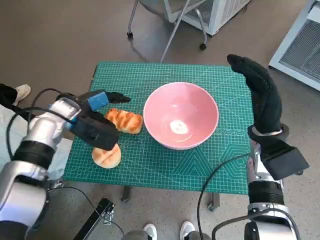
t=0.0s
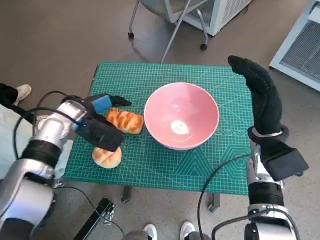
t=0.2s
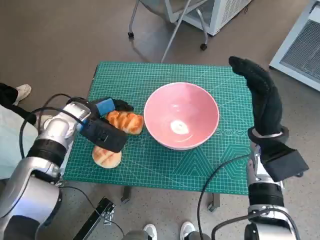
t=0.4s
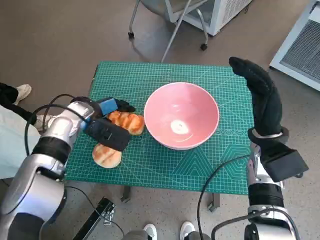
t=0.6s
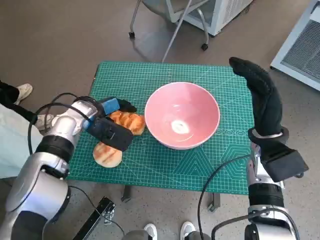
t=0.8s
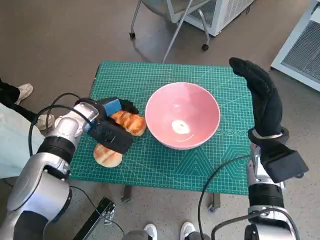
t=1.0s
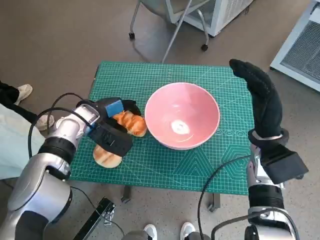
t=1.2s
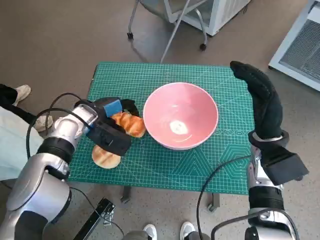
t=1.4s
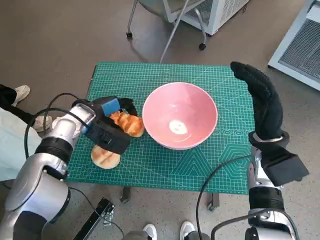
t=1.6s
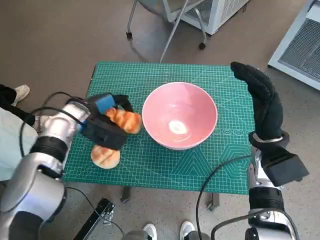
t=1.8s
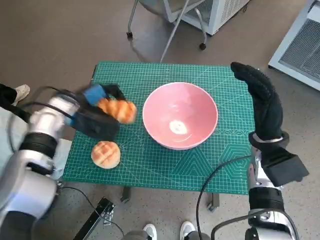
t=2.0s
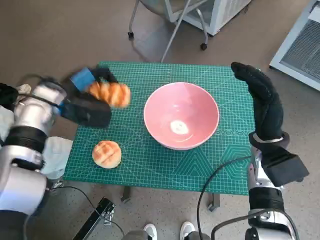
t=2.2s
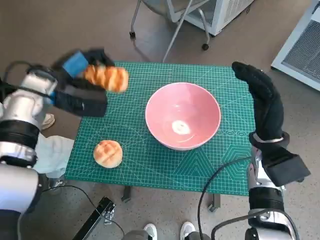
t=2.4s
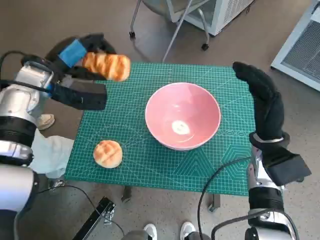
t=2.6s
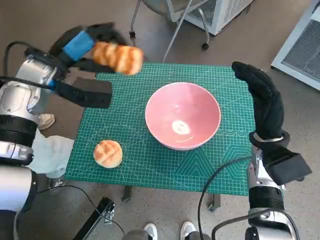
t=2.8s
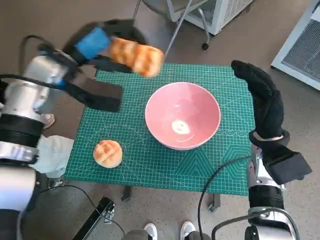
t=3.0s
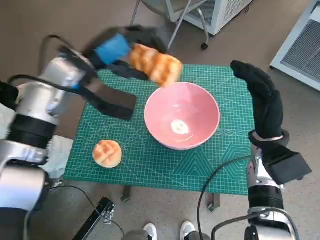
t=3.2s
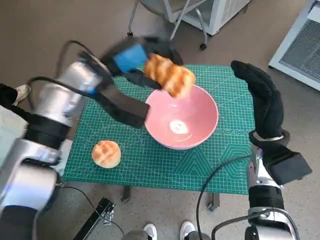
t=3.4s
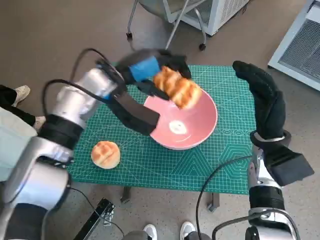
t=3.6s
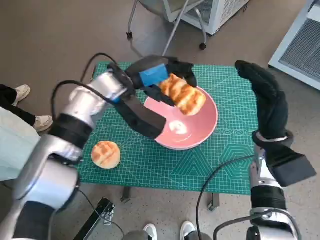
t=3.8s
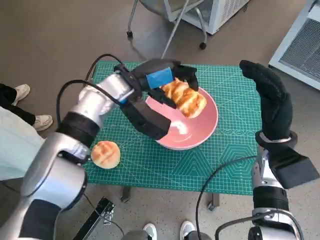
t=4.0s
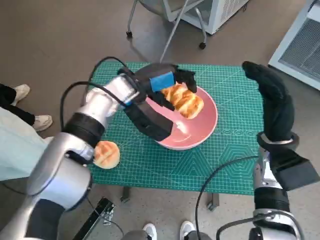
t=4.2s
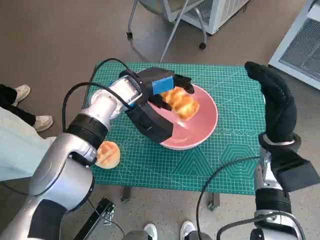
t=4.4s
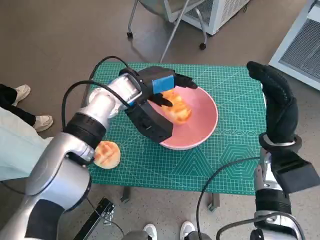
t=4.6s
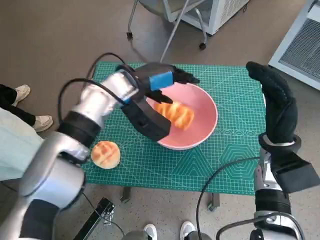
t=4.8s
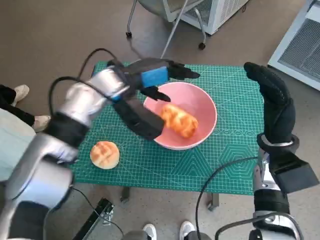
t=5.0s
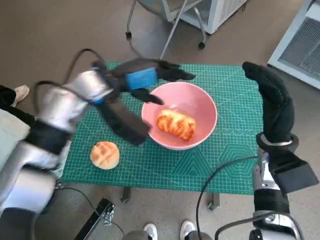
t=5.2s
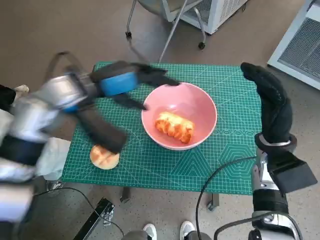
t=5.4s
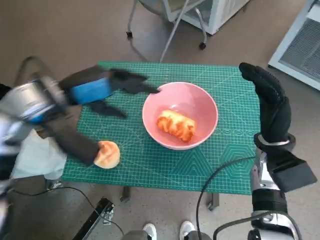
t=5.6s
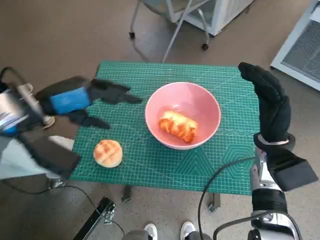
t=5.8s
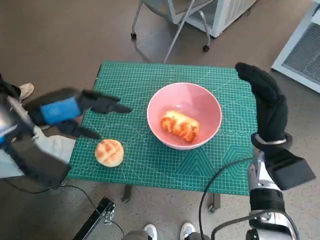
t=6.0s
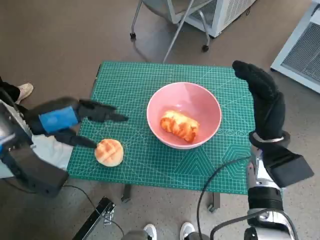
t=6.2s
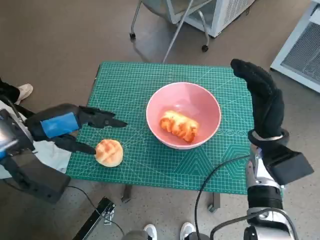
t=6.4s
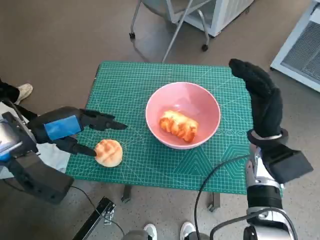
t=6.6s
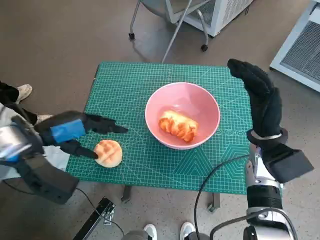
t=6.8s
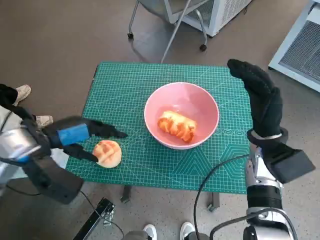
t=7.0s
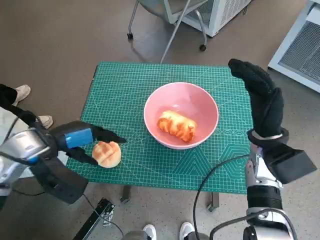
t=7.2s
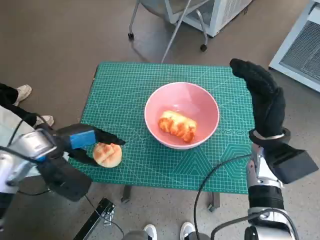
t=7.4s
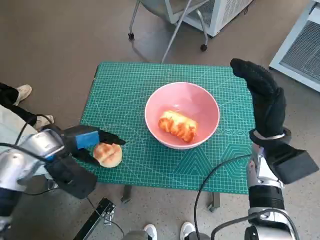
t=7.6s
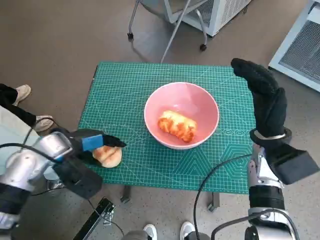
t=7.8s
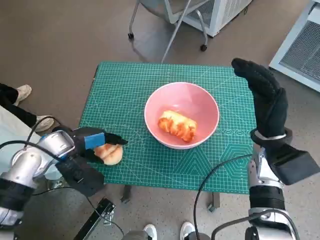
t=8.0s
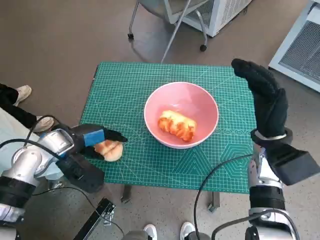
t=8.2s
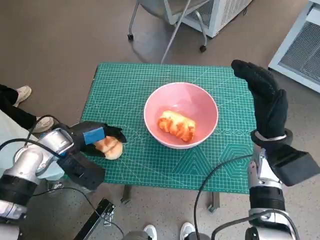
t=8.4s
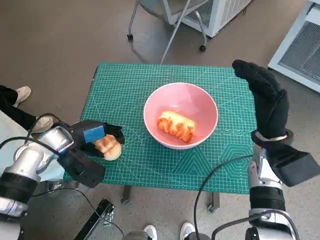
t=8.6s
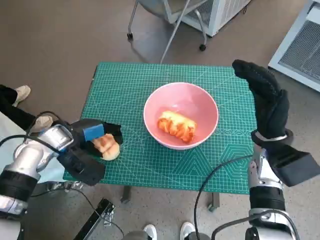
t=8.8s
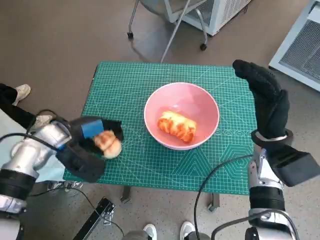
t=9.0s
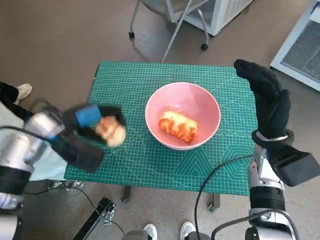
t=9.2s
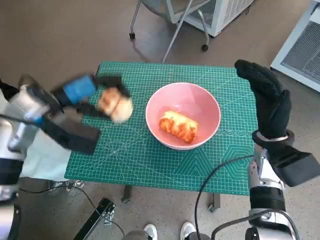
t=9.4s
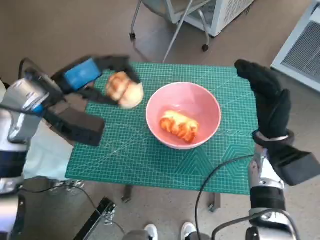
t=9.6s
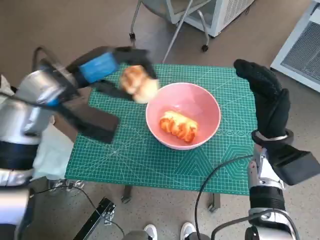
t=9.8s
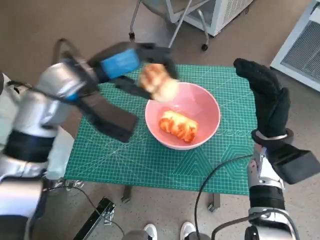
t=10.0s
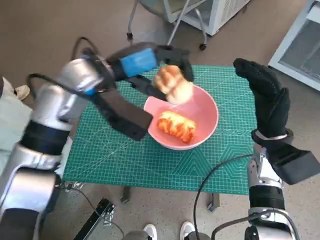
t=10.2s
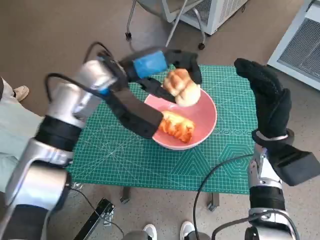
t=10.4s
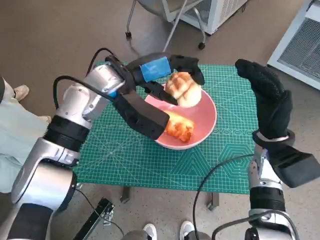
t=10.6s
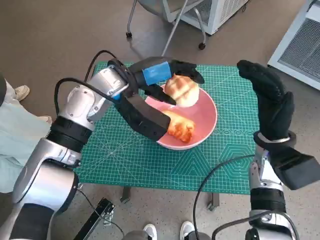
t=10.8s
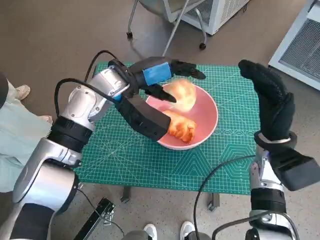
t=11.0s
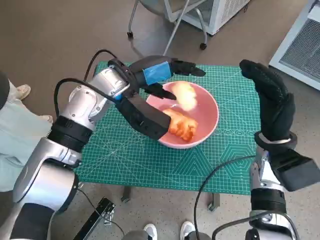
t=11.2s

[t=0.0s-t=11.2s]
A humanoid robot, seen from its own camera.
Task of the whole recording: Push the bowl to the center of the table and put the bread into the bowl.
Step, t=0.8s to t=5.0s: Place the long bread in pink bowl with left hand.
Step, t=5.2s to t=7.8s: Grasp the round bread with left hand.
t=0.0s to t=1.6s: There are only small adjustments of the hands.
t=1.6s to t=3.2s: The left hand heads upward, covering some 15 cm.
t=3.2s to t=4.8s: The left hand shifts about 10 cm to the right.
t=4.8s to t=6.4s: The left hand shifts approximately 20 cm to the left and backward.
t=6.4s to t=8.0s: The left hand travels downward by roughly 10 cm.
t=8.0s to t=9.6s: The left hand is displaced upward by about 10 cm.
t=9.6s to t=11.2s: The left hand travels to the right by about 10 cm.

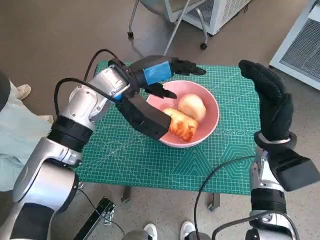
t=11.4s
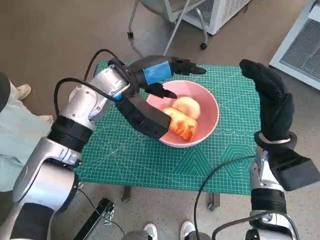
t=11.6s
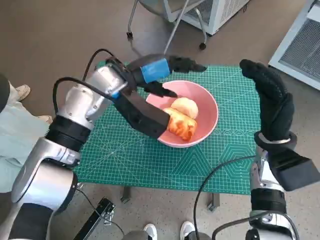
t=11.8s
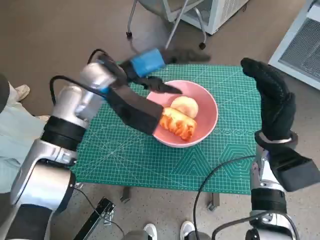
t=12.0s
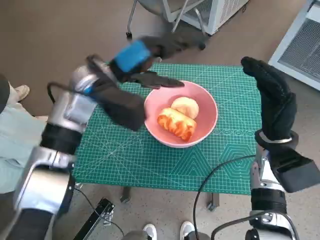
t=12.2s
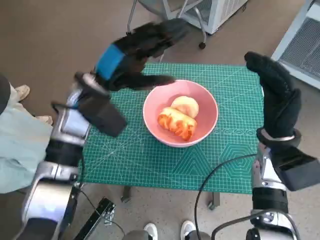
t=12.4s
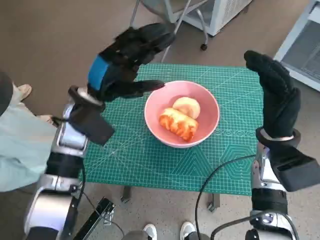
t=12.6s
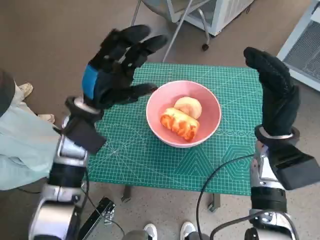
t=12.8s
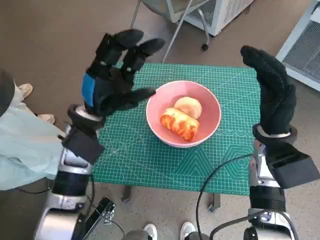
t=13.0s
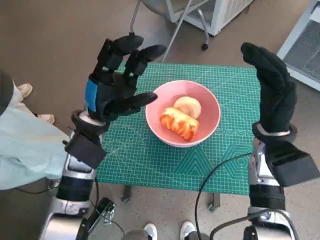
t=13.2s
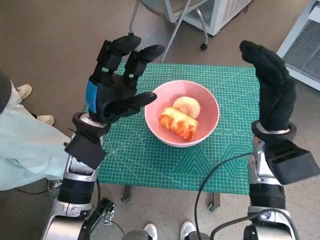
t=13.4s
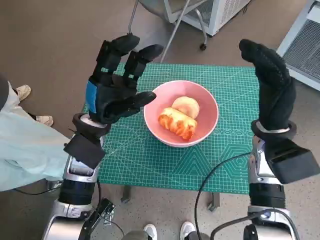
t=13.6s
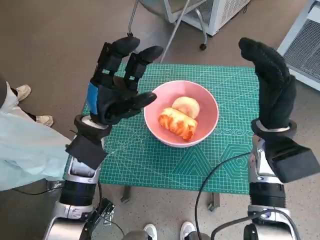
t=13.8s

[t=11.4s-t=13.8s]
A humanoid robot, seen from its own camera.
Task of the whole recording: Push the bowl to the center of the table and put the bread into the bowl.
t=11.4s to t=12.6s: The left hand travels to the left by roughly 5 cm.
t=12.6s to t=13.8s: The left hand moves approximately 5 cm.

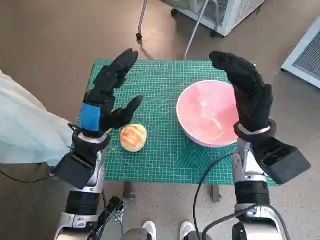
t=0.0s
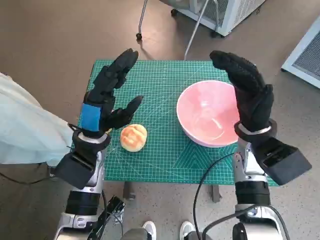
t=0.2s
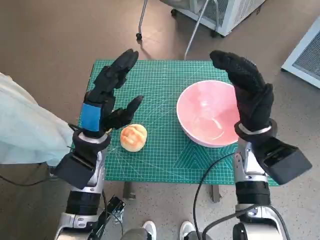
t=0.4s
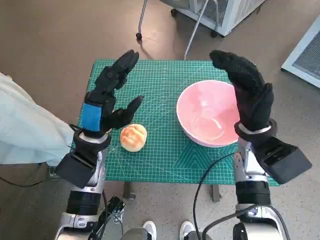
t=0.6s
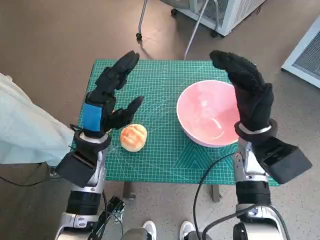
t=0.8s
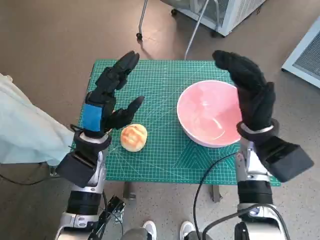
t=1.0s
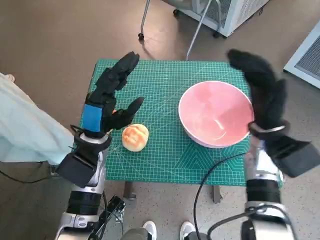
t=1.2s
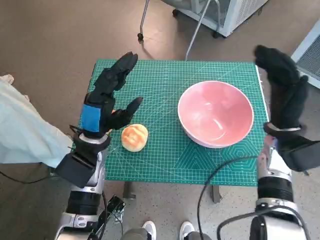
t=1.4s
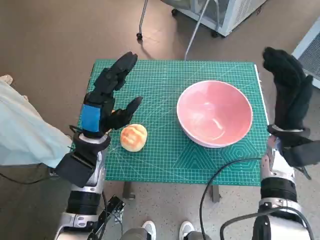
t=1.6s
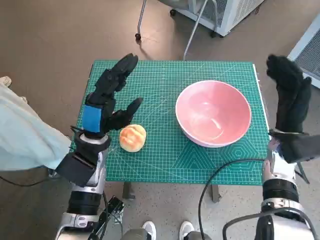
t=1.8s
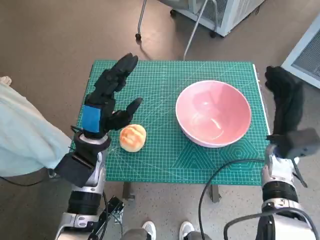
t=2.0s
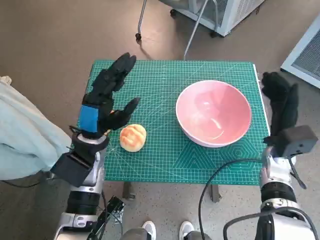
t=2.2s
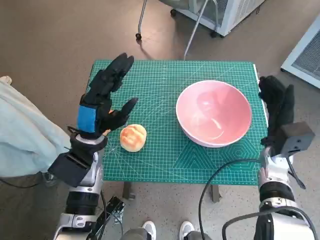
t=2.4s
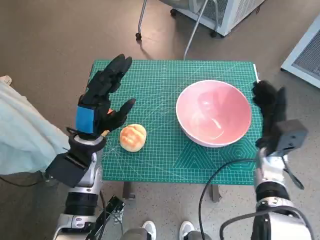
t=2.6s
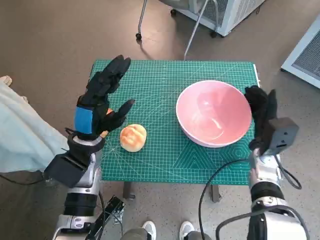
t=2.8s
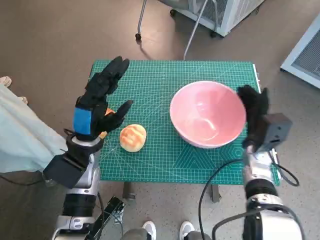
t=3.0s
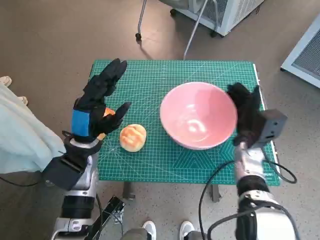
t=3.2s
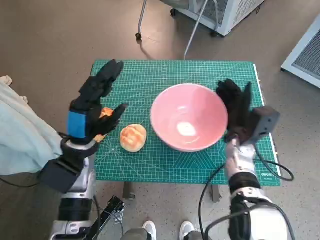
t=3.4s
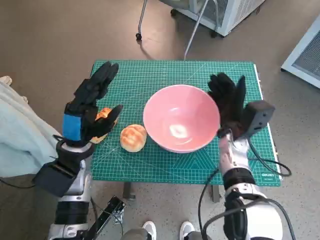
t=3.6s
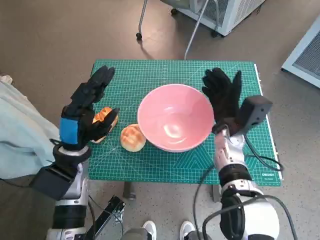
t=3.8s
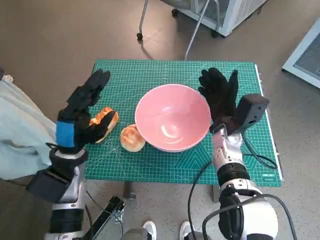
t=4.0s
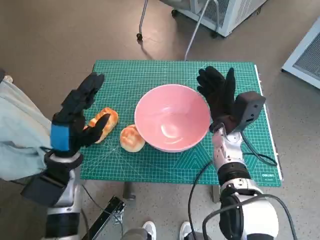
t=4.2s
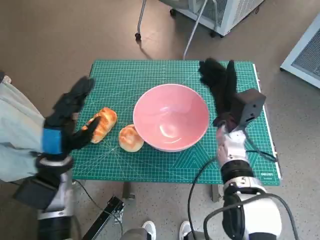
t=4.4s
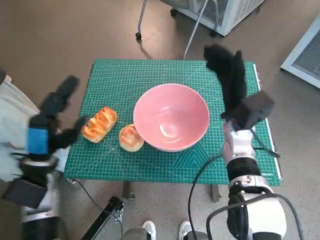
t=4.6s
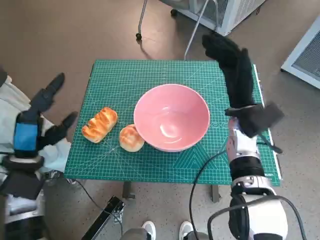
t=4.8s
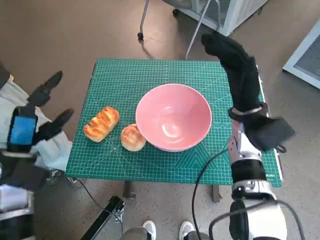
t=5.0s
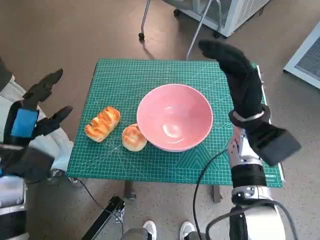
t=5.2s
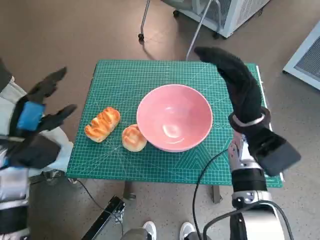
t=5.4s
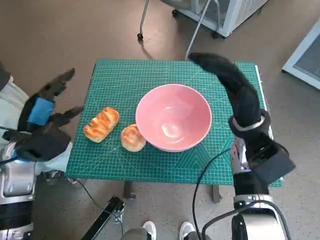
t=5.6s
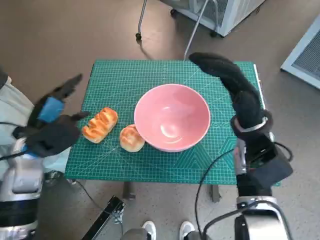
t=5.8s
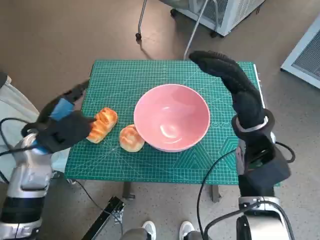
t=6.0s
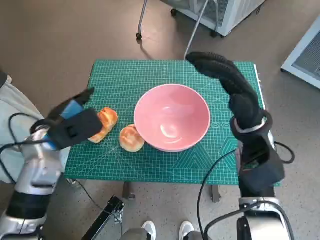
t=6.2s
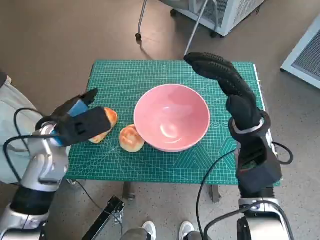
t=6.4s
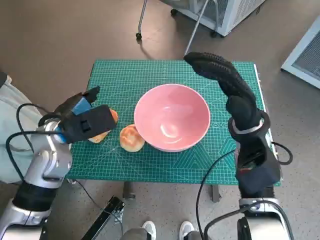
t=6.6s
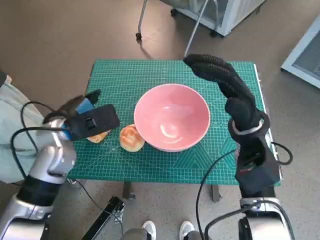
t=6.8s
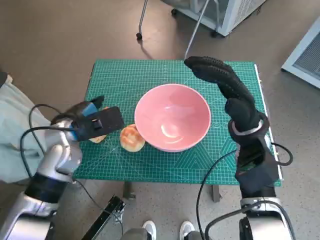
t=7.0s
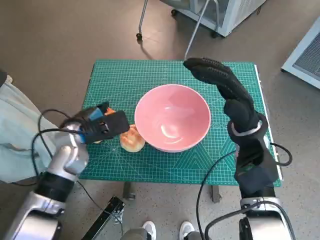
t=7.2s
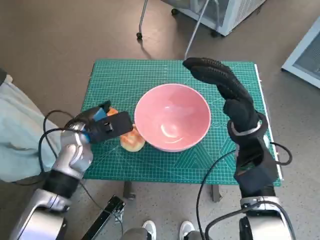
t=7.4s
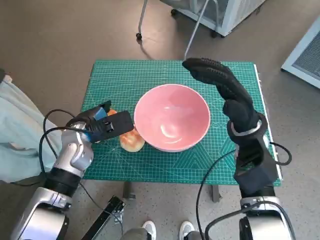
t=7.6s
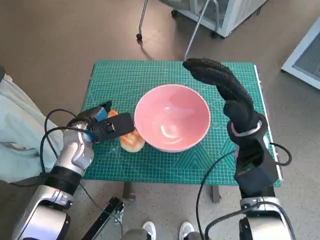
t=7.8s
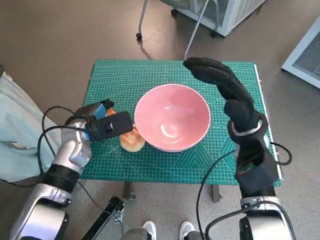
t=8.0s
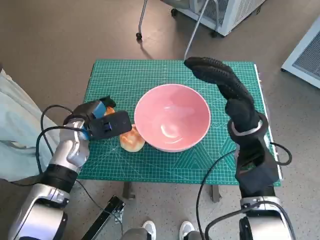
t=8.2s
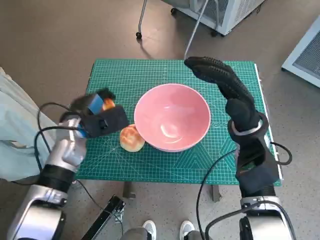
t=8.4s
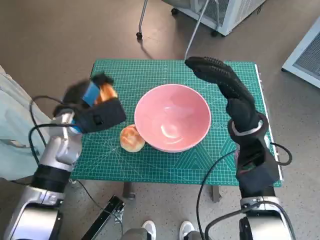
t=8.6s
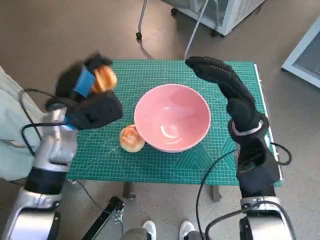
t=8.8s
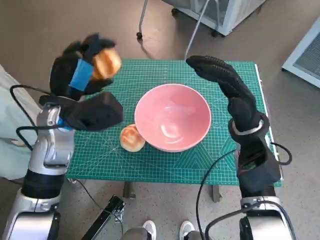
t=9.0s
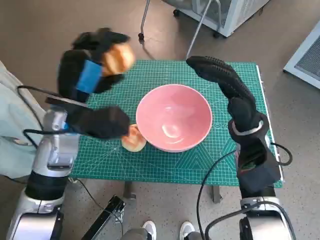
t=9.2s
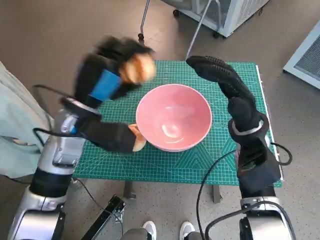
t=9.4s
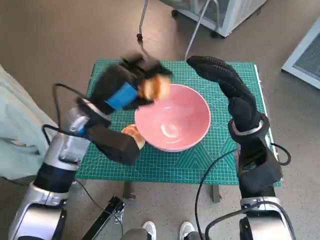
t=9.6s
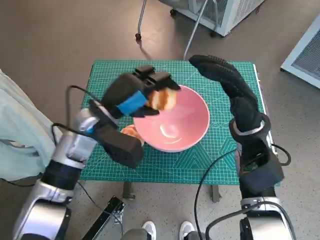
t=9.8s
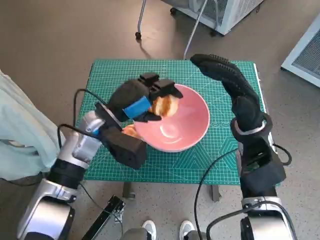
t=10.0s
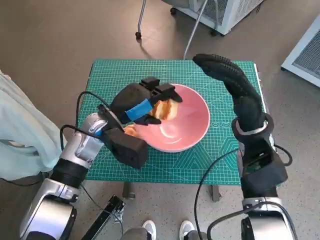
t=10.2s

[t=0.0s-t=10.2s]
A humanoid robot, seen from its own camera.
Task of the whole recording: Push the bowl to the center of the table and put the bread into the bowl.
Step, t=0.0s to t=4.2s: Move the pink bowl to the center of table with right hand.
Step, t=4.4s to t=8.0s: Grasp the long bread with left hand.
t=1.4s to t=3.0s: The right hand is displaced downward by about 10 cm.
t=3.0s to t=4.4s: The right hand moves to the left, about 5 cm; the left hand ends up about 5 cm from where it was.
t=4.4s to t=5.8s: The left hand shifts by about 5 cm, while the right hand goes approximately 5 cm upward.
t=5.8s to t=7.2s: The left hand travels to the right by roughly 5 cm.
t=8.8s to t=10.2s: The left hand is displaced to the right by roughly 5 cm.
